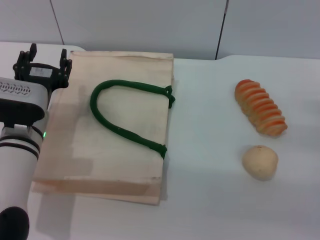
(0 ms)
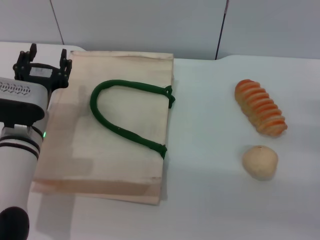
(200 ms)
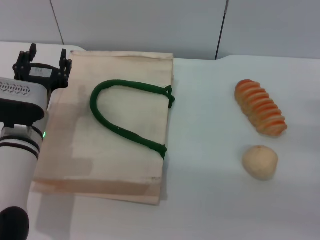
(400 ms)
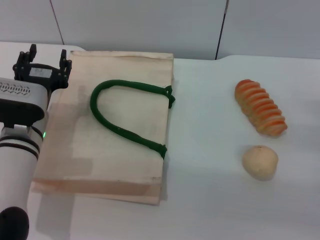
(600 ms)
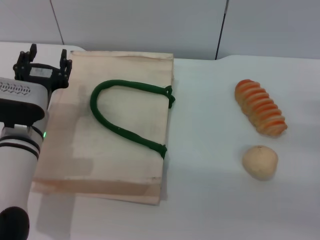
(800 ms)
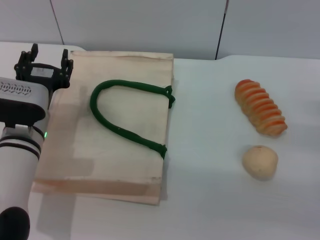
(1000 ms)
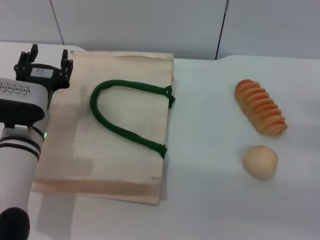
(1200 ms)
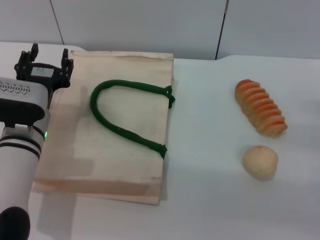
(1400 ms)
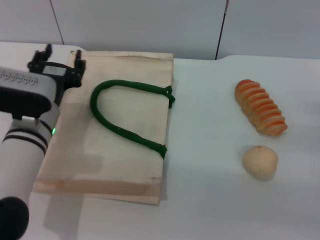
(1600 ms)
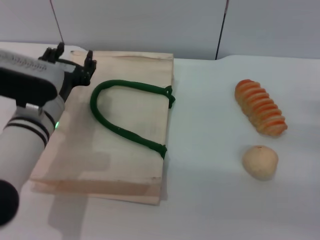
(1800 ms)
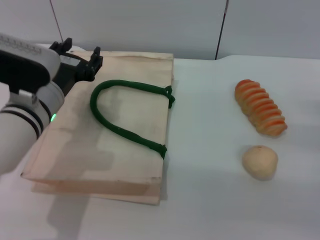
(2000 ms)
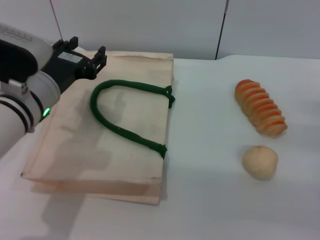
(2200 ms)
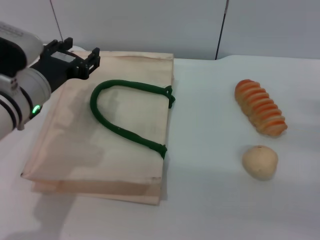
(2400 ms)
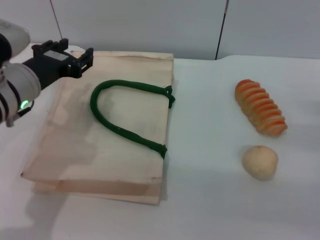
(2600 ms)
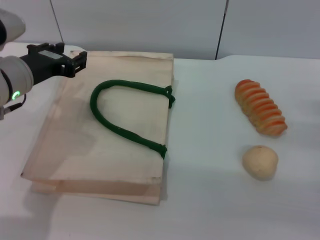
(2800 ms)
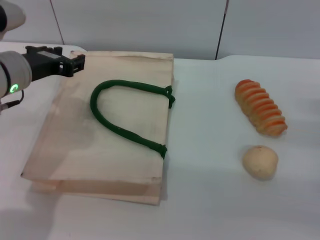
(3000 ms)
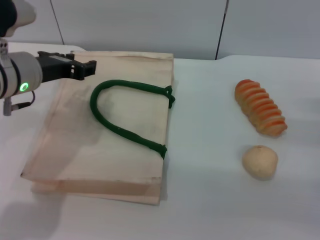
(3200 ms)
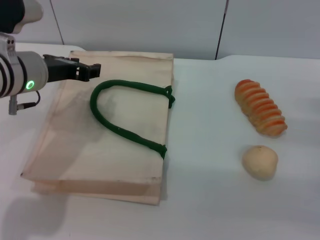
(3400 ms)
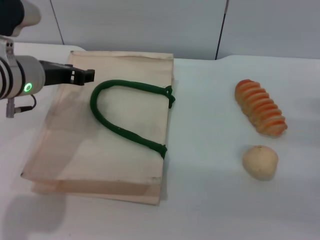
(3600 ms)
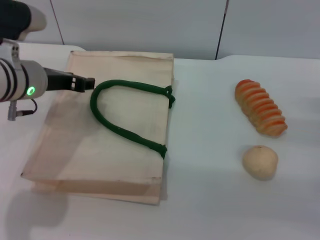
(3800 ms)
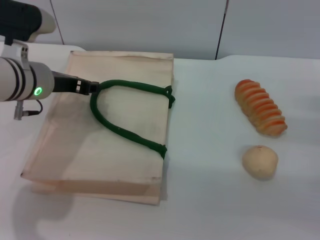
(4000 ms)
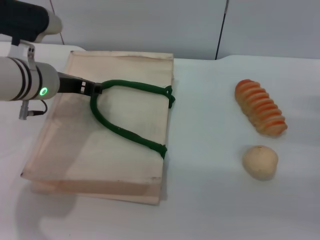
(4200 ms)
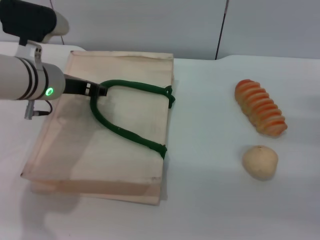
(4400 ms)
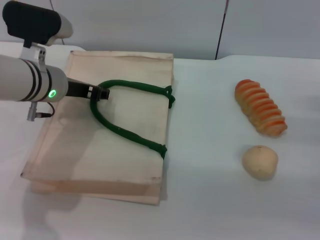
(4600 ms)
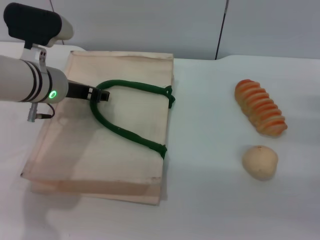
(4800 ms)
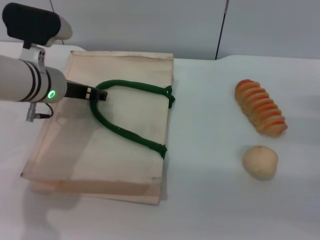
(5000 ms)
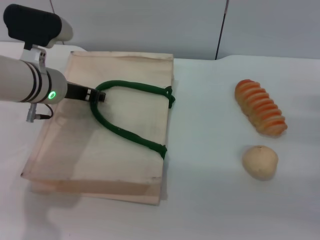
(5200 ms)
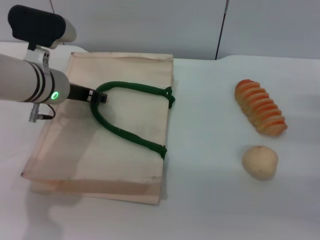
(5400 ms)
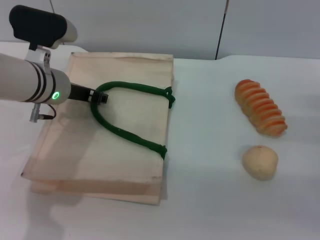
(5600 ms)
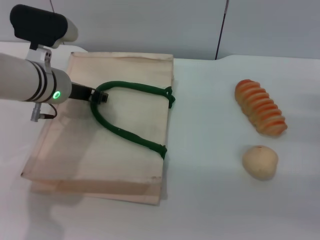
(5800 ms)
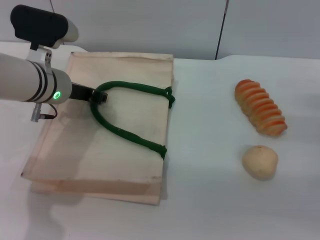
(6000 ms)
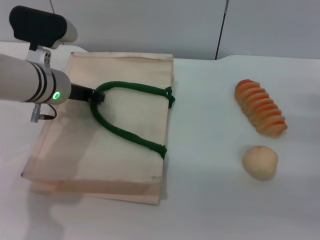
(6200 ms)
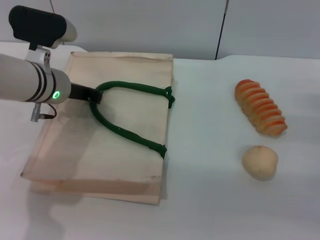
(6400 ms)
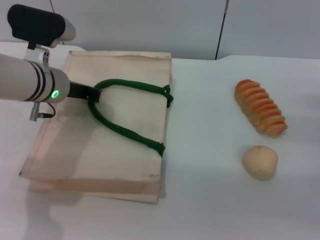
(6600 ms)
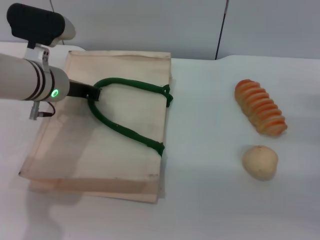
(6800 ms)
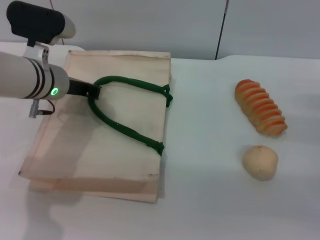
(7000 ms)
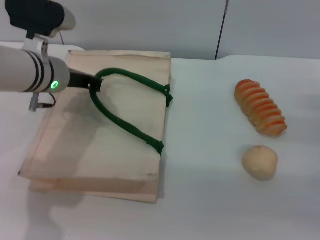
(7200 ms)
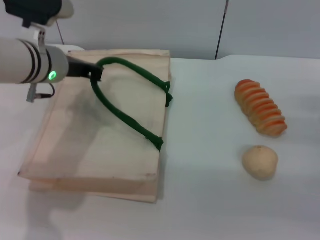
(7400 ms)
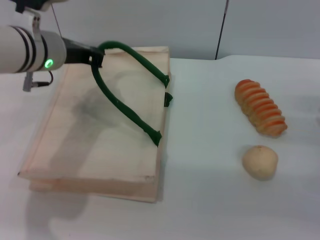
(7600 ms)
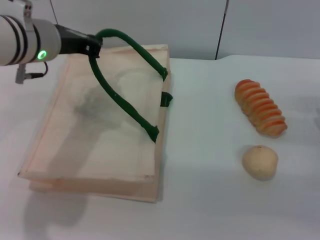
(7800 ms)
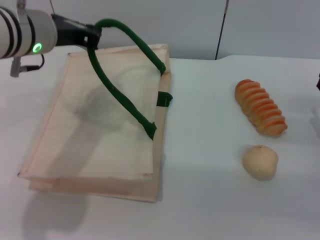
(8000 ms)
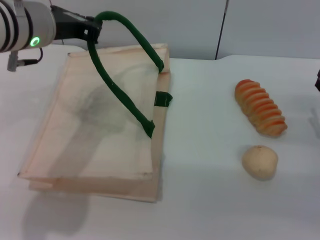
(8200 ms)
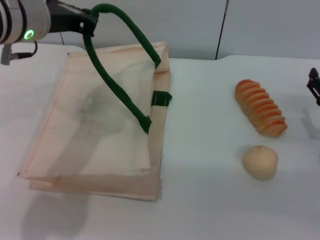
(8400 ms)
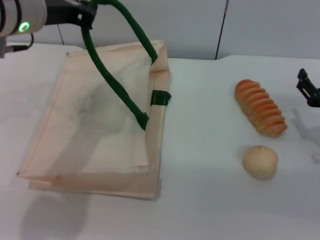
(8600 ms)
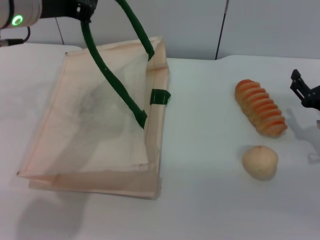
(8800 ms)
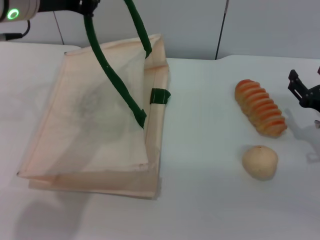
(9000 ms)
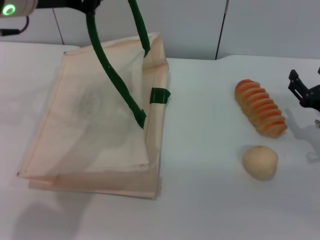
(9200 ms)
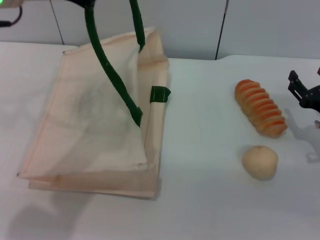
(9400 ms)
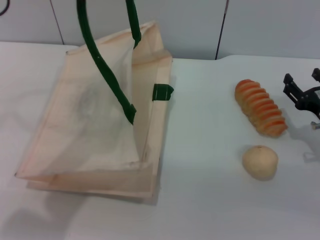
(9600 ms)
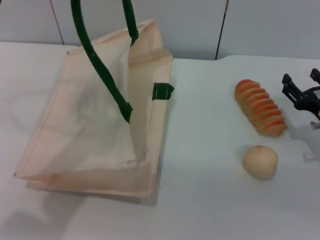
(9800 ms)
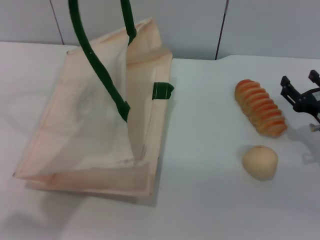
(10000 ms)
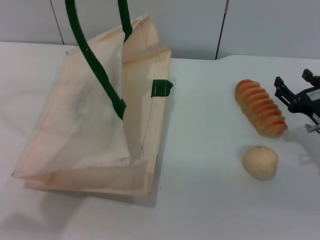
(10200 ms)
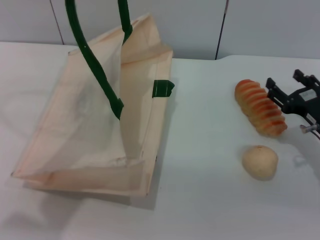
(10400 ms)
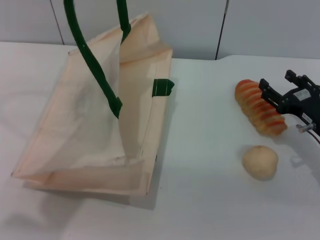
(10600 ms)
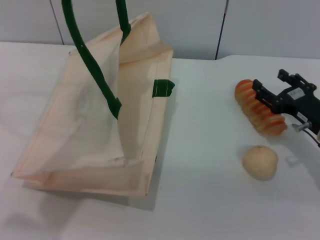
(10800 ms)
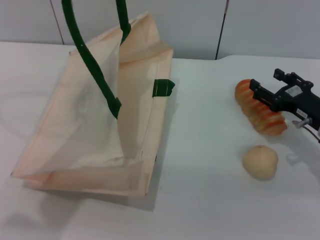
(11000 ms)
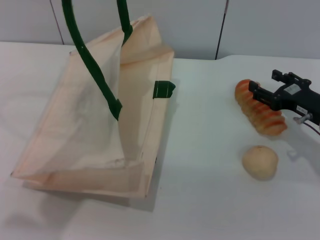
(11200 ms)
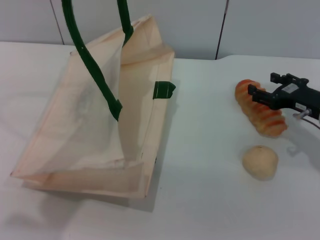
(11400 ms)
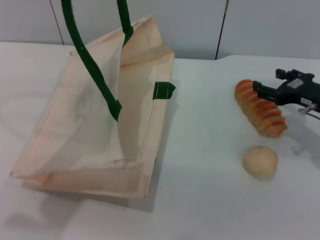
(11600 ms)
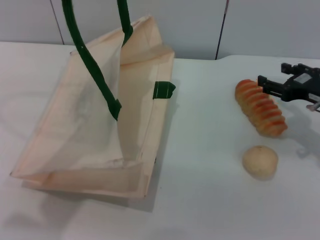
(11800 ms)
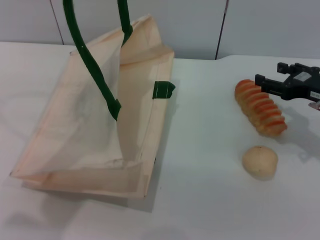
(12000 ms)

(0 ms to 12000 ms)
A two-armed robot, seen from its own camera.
Task of the whole recording: pick up the bread and egg yolk pastry from the table and place it in the white handbag.
Step, 0 ms - 8800 ms: Lift the woven bag with the left gripper to open it.
0 ms - 1600 ms: The grippers stay close to where they were, moving slightly.
1600 ms - 3000 ms: The left gripper travels upward by some 10 cm.
3000 ms - 4400 ms: The left gripper shifts by some 5 cm.
4400 ms - 6000 ms: The grippers make only small movements.
6000 ms - 7600 ms: The left gripper is displaced upward by approximately 5 cm, and closes its fingers.
7600 ms - 9000 ms: The left gripper is displaced upward by approximately 10 cm.
9000 ms - 10400 ms: The left gripper travels upward by about 5 cm.
10400 ms - 12000 ms: The right gripper heads upward, covering about 5 cm.

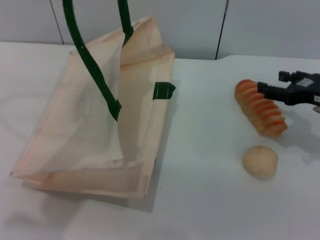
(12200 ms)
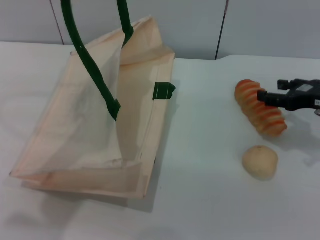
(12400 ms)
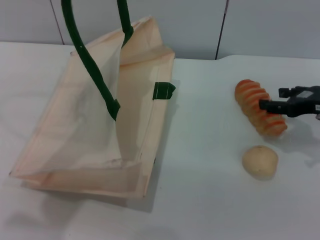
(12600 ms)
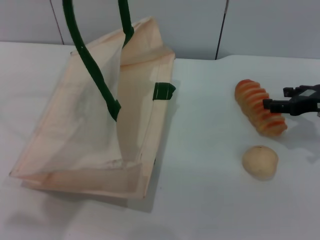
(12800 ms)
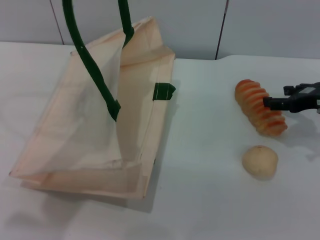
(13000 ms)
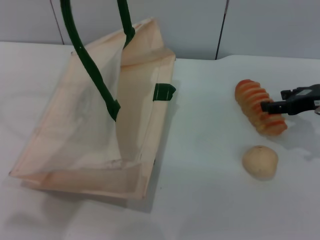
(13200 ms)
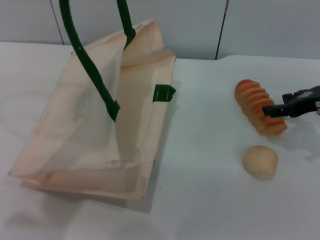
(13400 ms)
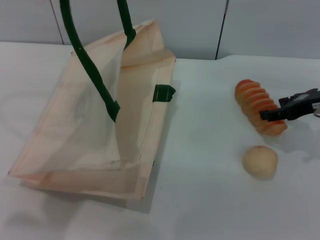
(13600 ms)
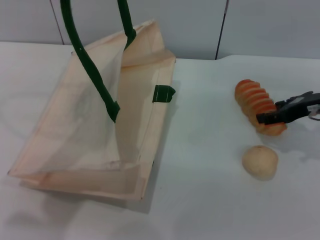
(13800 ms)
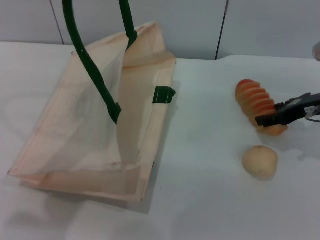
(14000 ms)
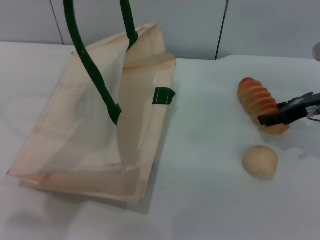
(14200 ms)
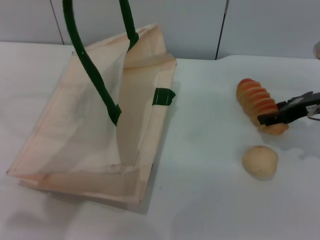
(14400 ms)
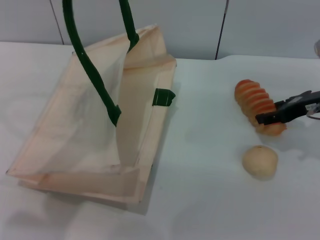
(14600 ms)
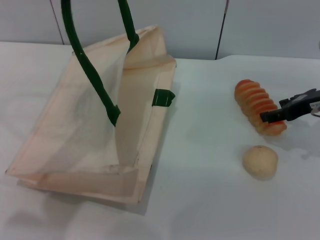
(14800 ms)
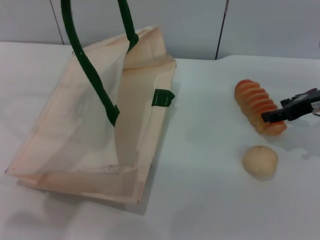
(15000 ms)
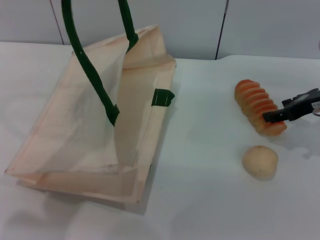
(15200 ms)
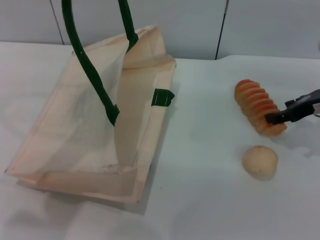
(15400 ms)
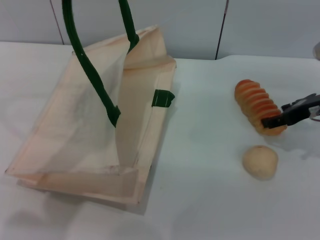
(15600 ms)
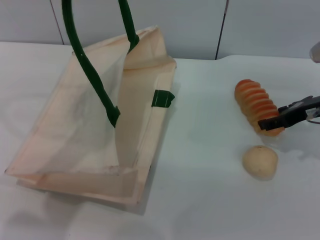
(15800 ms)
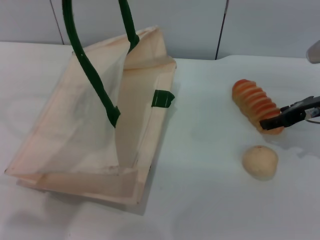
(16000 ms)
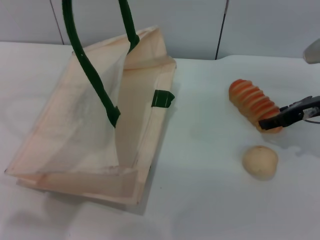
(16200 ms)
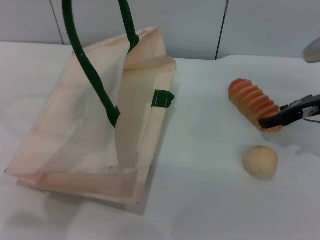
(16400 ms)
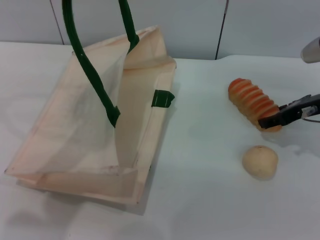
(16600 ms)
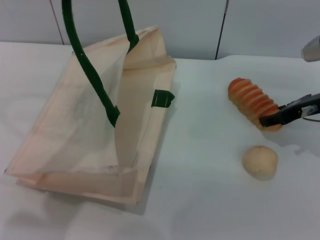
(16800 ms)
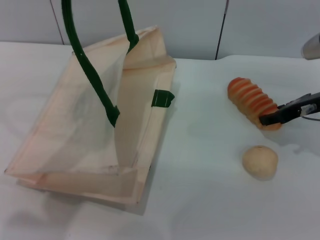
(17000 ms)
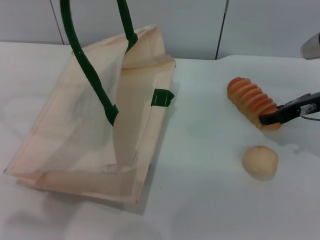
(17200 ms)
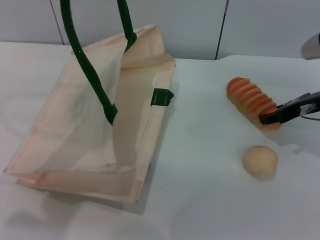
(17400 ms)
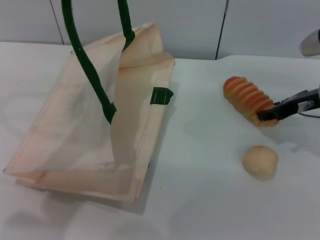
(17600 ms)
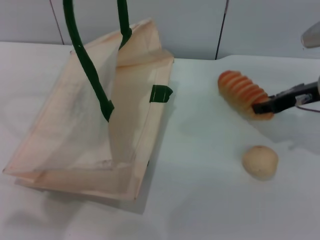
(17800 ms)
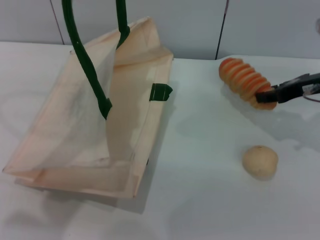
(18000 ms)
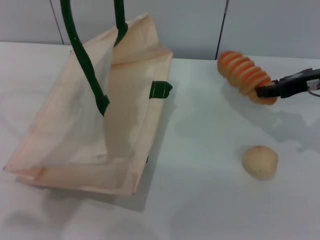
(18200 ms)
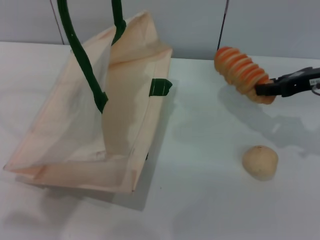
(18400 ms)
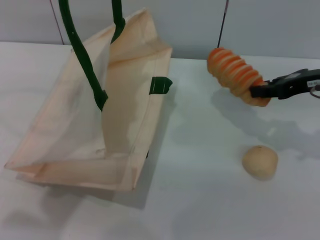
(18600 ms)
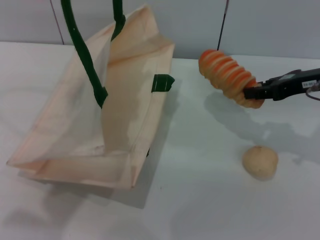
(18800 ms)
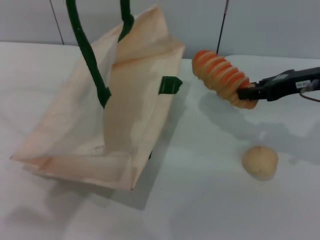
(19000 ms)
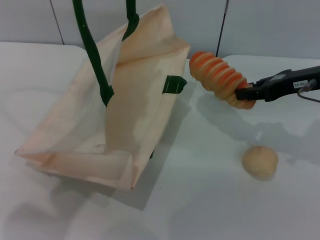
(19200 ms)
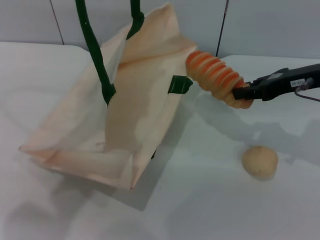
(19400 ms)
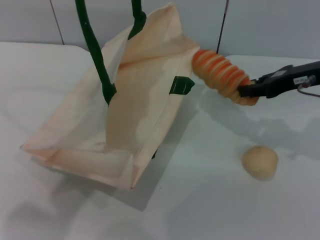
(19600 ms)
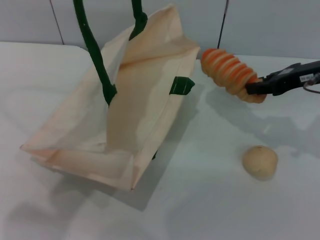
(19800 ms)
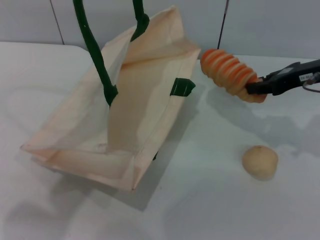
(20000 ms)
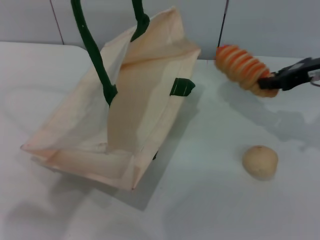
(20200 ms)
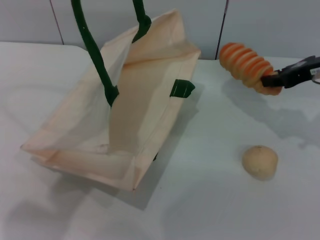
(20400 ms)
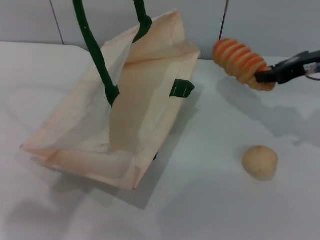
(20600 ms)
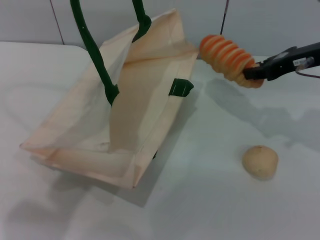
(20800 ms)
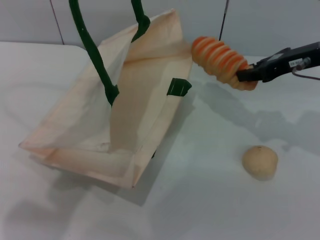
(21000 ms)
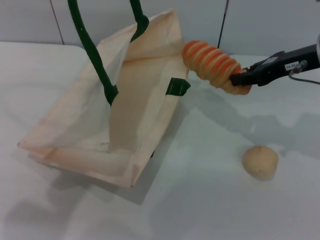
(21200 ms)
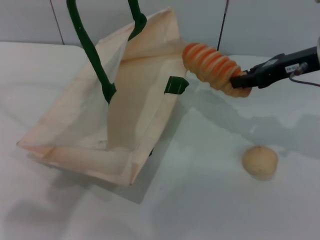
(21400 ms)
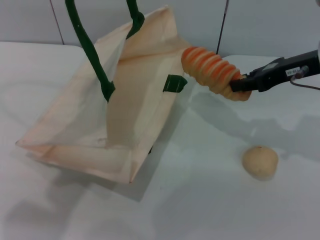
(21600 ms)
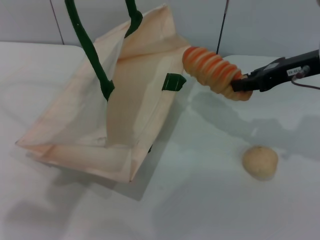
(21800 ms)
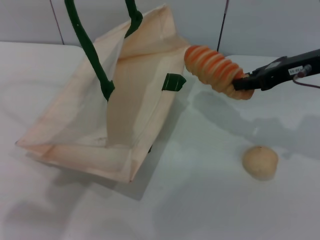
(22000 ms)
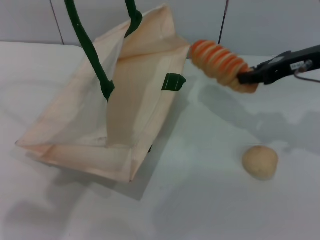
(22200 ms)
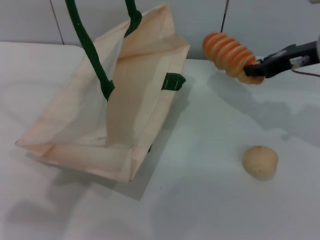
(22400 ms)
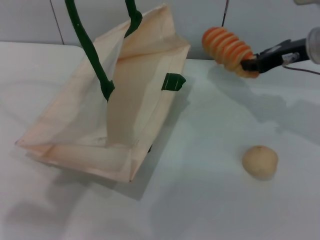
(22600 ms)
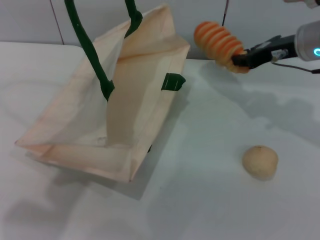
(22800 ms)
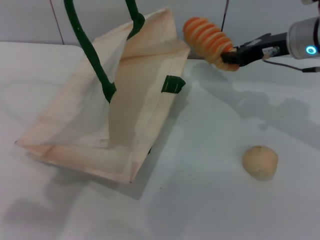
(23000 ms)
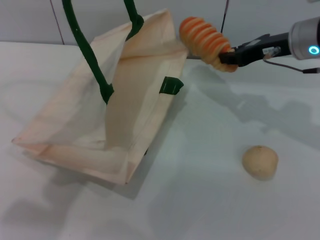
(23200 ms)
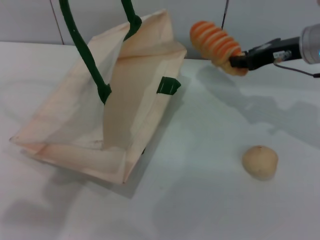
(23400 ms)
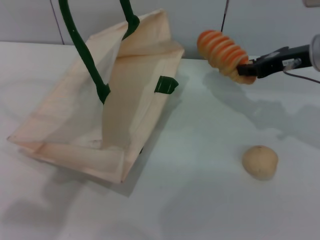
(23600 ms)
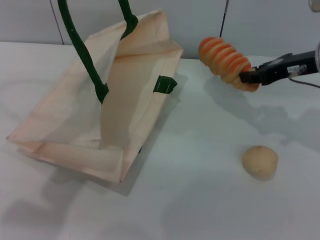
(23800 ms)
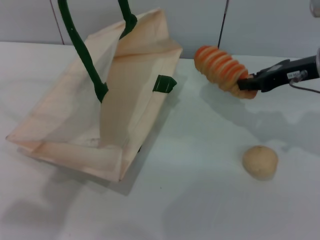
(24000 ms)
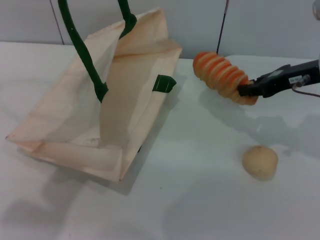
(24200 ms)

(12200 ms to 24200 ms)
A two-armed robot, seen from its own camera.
Task of the whole recording: pick up the bread and egg yolk pastry from the table and place it in the white handbag.
Step, 12200 ms - 17800 ms: Pick up the bread with the right gripper.
13800 ms - 15200 ms: Neither gripper changes place.
15200 ms - 16600 ms: The grippers stay close to where they were, moving slightly.
16600 ms - 18200 ms: The right gripper closes.
18200 ms - 22600 ms: There are only small adjustments of the grippers.
22600 ms - 24200 ms: The grippers stay close to where they were, moving slightly.
